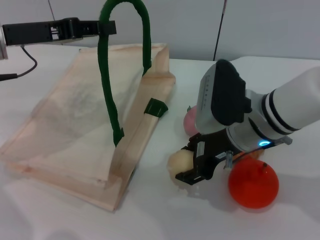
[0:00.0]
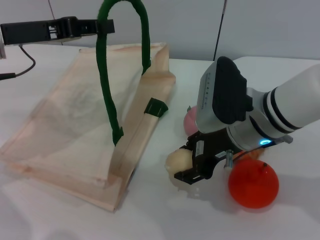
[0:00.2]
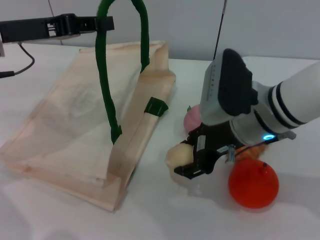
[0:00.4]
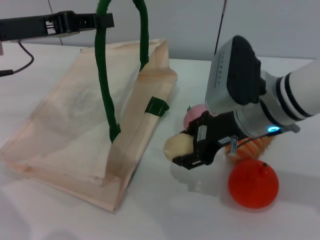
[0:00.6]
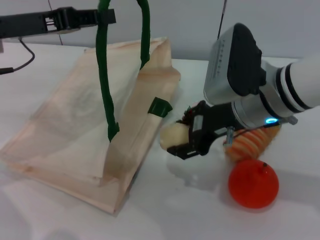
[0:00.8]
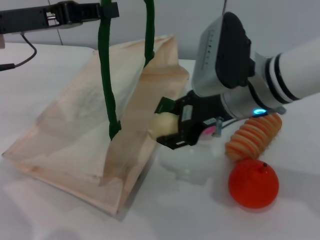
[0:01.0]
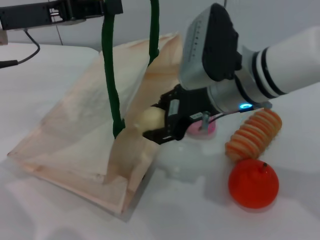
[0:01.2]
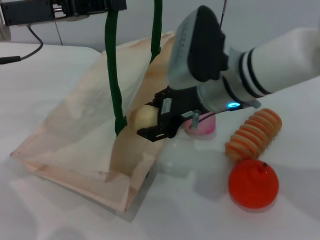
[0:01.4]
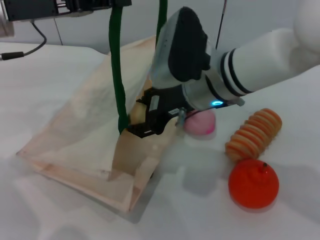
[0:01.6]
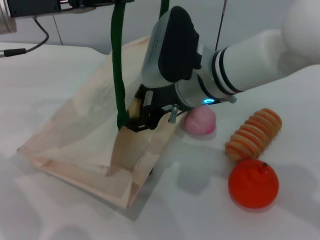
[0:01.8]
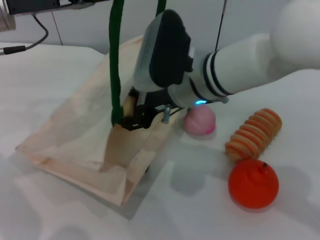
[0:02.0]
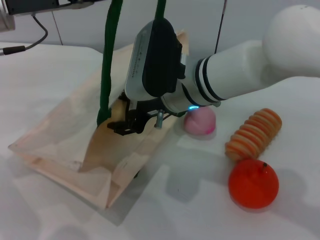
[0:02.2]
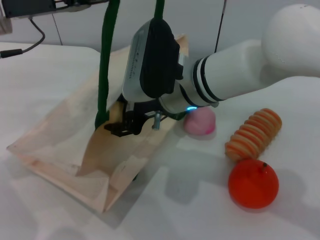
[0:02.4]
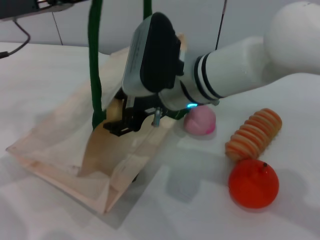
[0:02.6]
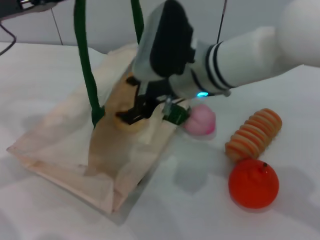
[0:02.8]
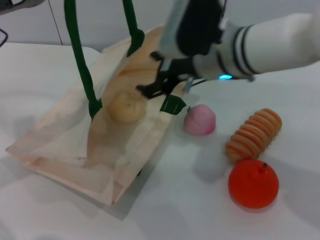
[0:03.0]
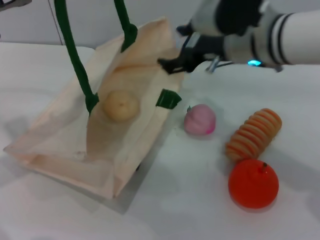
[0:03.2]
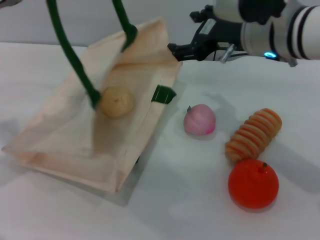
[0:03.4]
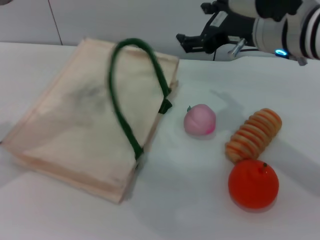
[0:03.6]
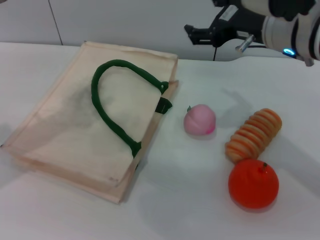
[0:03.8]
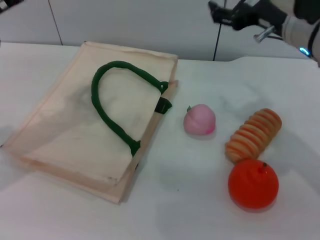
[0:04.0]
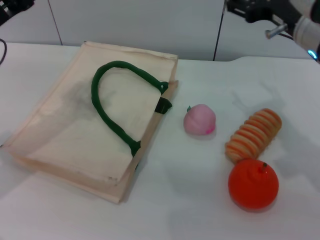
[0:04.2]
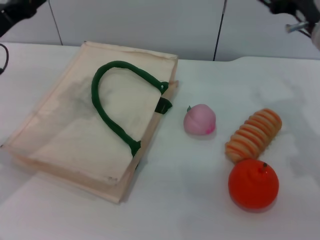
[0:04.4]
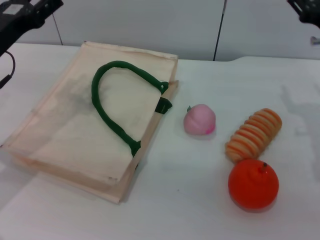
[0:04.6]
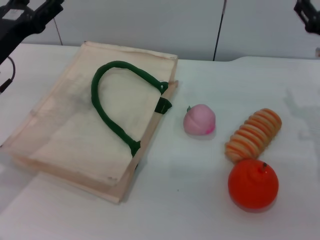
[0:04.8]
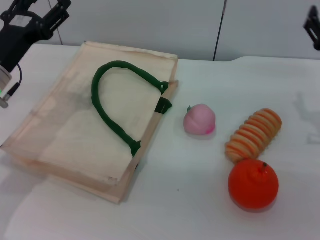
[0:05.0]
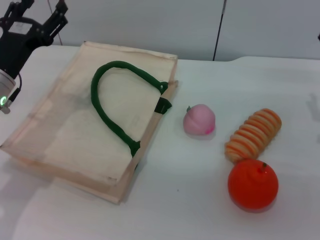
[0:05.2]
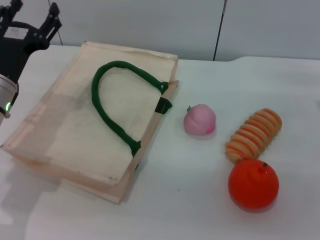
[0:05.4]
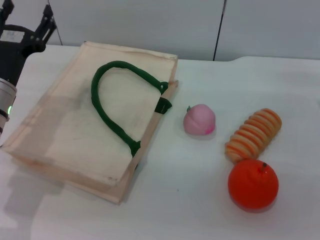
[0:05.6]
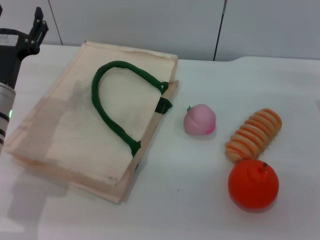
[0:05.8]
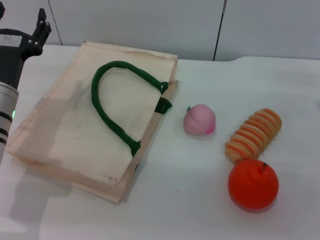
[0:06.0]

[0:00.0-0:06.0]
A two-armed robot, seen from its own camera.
Task of the whole recording: pick up the egg yolk pastry from the table and place it in the white handbag.
Step, 0:01.0 to 0:03.2: Place the egg yolk pastry into the woven bag with the right gripper.
Step, 0:03.4 to 0:04.0: Lower the woven bag with the left gripper to close it.
0:00.0 to 0:01.6: The right gripper is displaced to the left by some 5 cm.
0:01.6 to 0:03.0: The left gripper changes place by about 5 cm; the right gripper opens its fingers.
0:03.0 to 0:04.4: The right gripper heads to the right, covering roughly 15 cm. The left gripper is displaced downward by roughly 5 cm, and opens up.
0:04.4 to 0:06.0: Both grippers travel together downward and to the right, about 10 cm.
